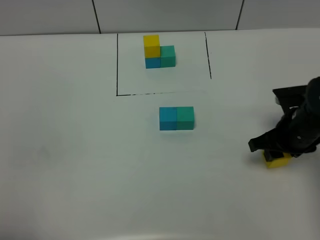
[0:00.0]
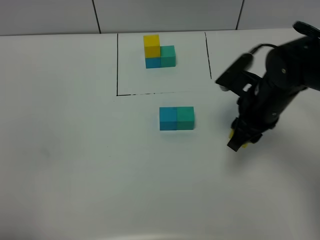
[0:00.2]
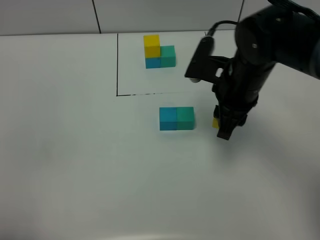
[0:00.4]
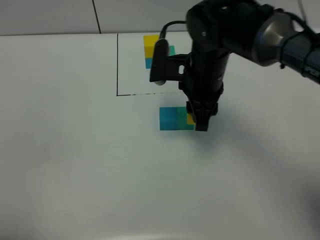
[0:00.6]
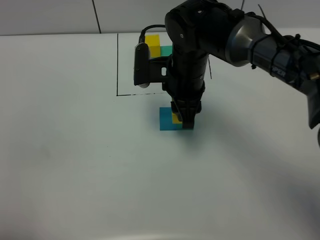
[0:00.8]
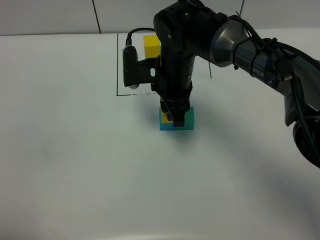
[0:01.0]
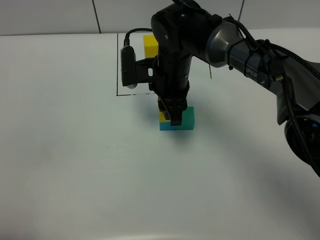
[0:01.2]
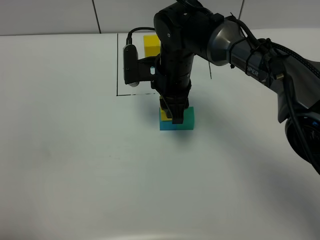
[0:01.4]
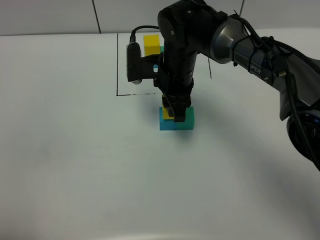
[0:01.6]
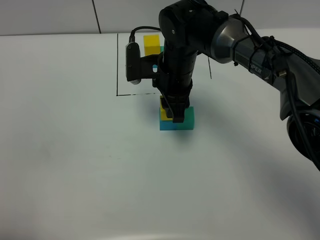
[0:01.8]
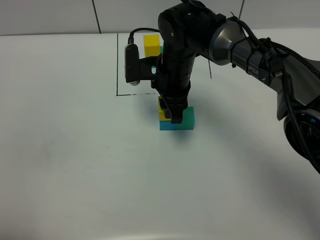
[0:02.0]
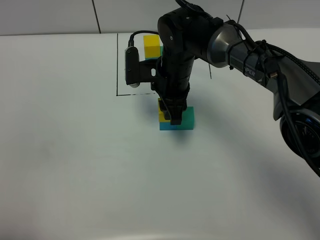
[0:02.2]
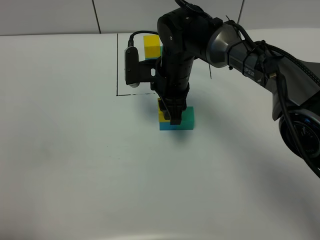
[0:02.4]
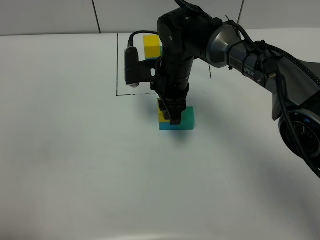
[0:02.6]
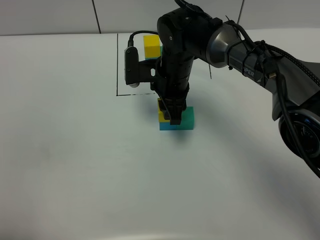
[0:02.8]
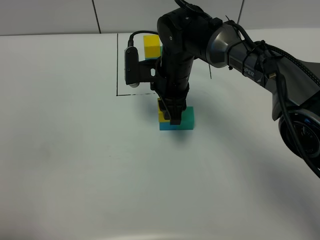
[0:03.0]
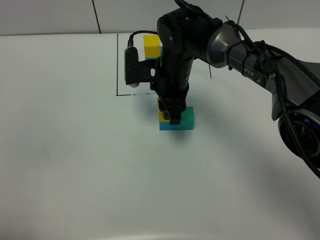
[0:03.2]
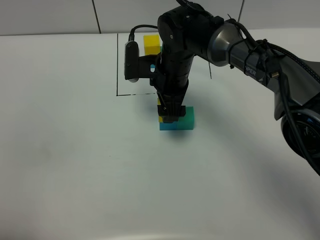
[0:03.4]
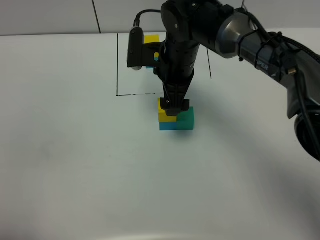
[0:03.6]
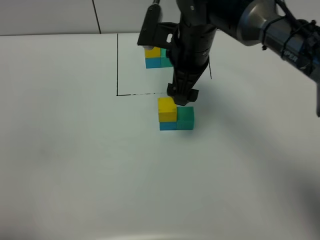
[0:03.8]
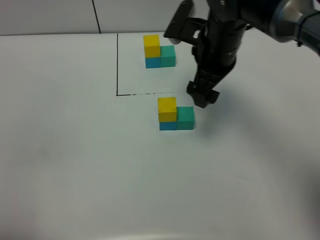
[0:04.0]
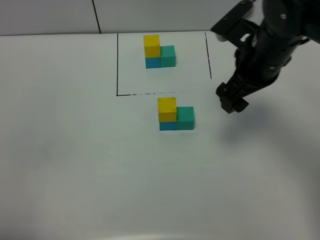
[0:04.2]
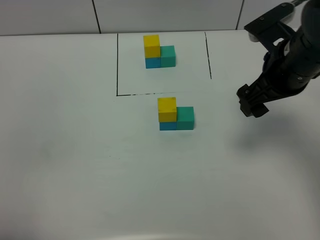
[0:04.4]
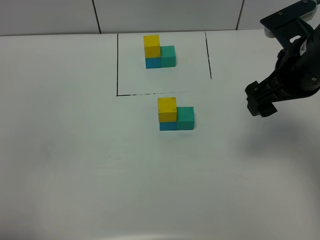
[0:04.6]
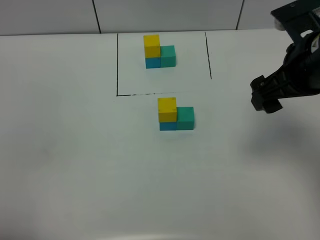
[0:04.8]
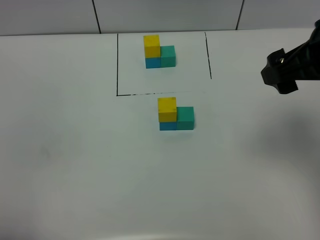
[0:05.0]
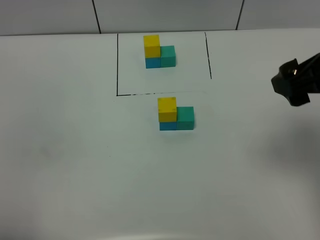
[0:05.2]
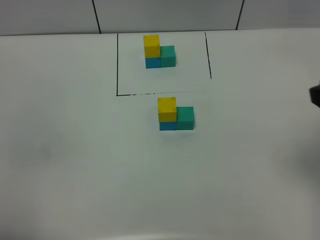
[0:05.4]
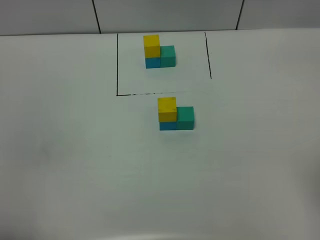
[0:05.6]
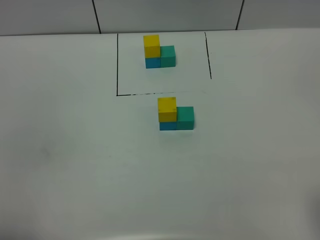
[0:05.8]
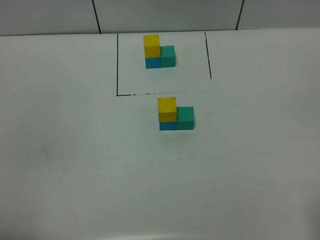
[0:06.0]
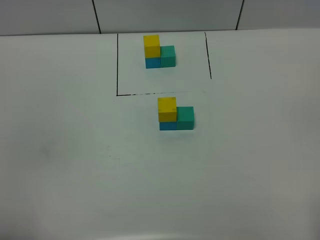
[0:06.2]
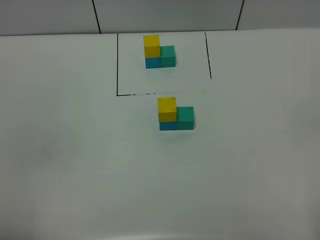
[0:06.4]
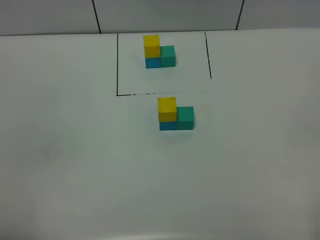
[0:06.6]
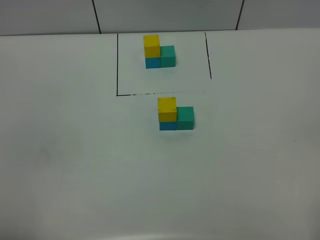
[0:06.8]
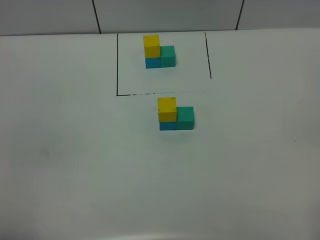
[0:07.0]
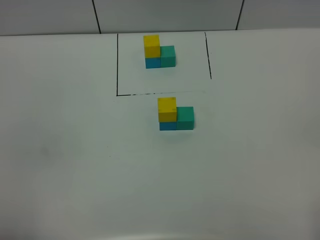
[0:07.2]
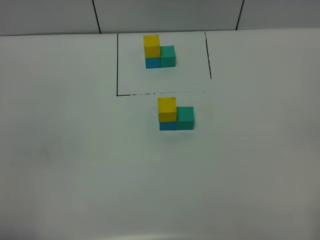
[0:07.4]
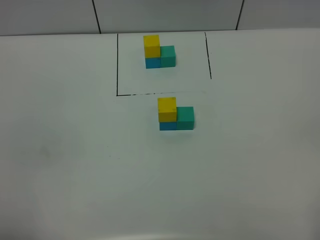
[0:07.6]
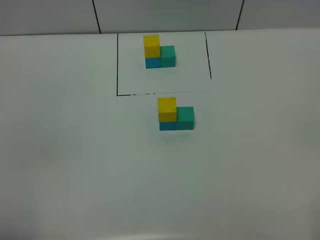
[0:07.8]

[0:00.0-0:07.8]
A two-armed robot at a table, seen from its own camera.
Task of the whole recording: According to the building block template in front, assemble the scattered blocks together.
Step, 0:00.0 to 0:03.4: Put the yellow build block on the blue build block.
0:00.0 to 0:01.6: The right gripper heads to the left and forward, covering about 25 cm.
0:01.6 to 0:03.2: There are only small adjustments of the grippers.
0:03.2 to 0:04.6: The right gripper travels to the right, upward and backward by about 25 cm, and opens up.
0:04.6 to 0:06.2: The right gripper goes about 30 cm backward.
